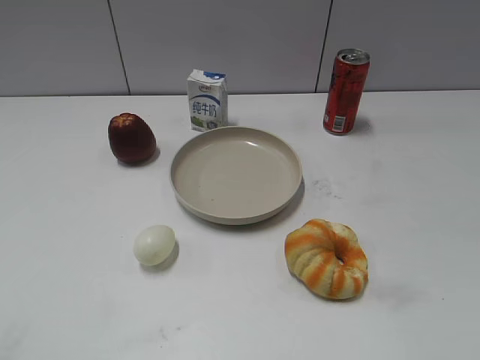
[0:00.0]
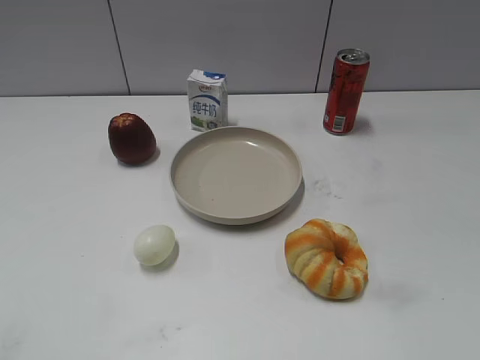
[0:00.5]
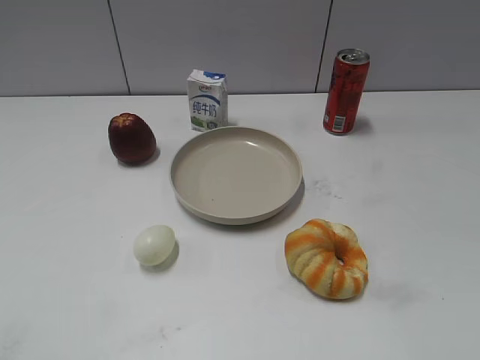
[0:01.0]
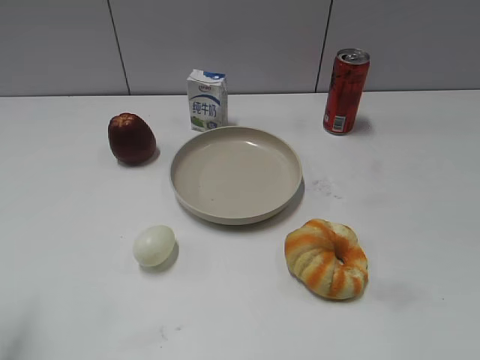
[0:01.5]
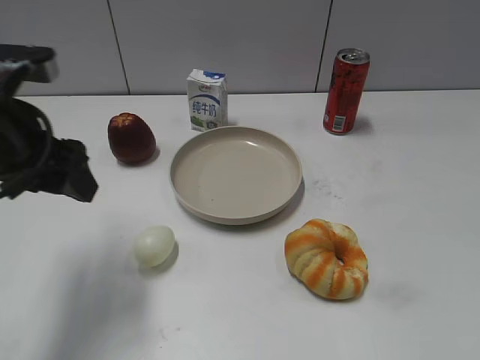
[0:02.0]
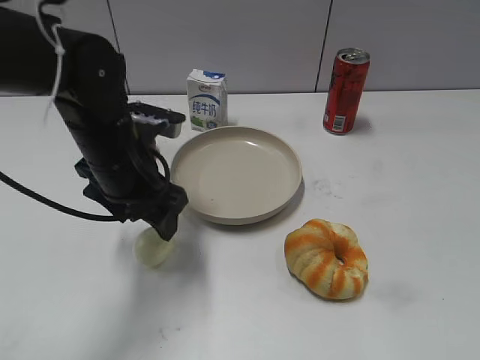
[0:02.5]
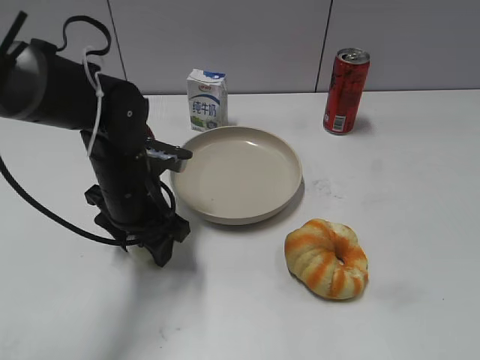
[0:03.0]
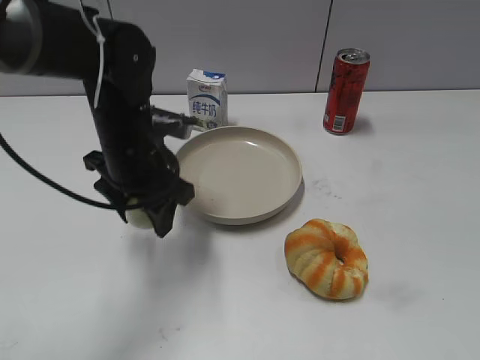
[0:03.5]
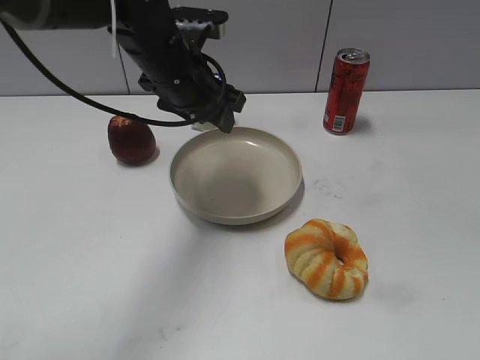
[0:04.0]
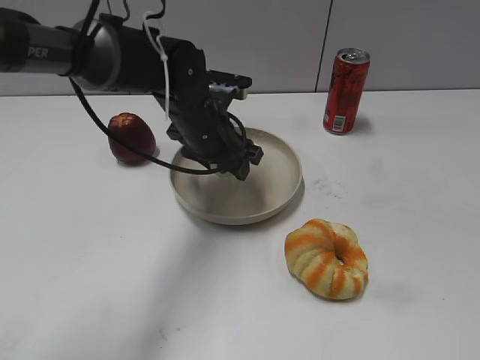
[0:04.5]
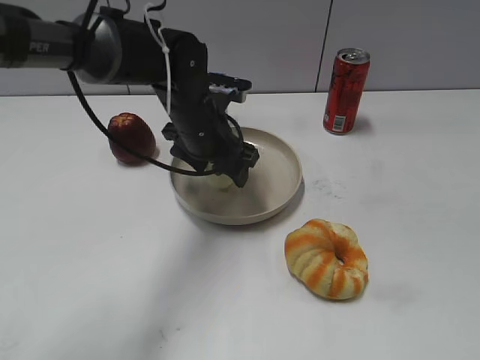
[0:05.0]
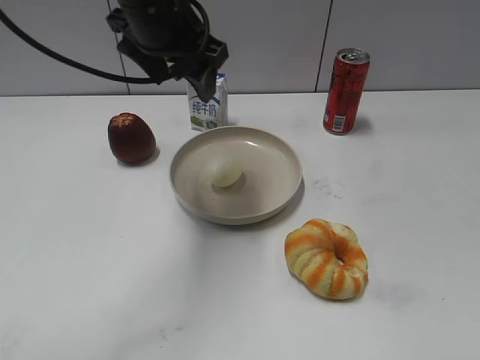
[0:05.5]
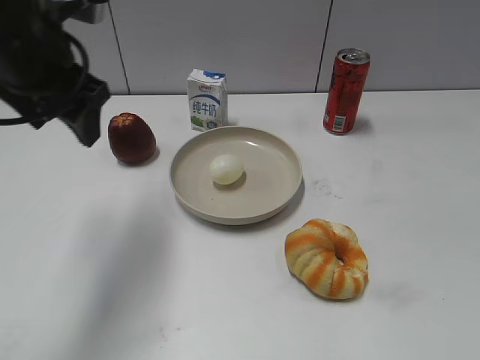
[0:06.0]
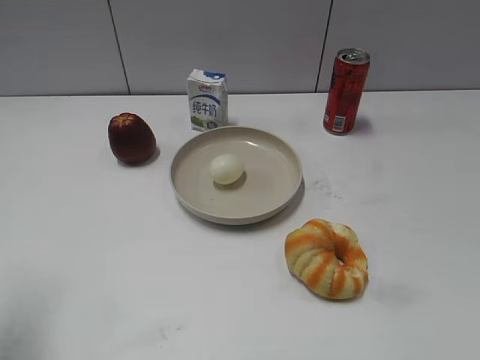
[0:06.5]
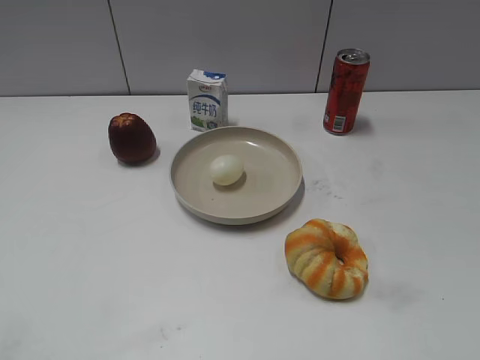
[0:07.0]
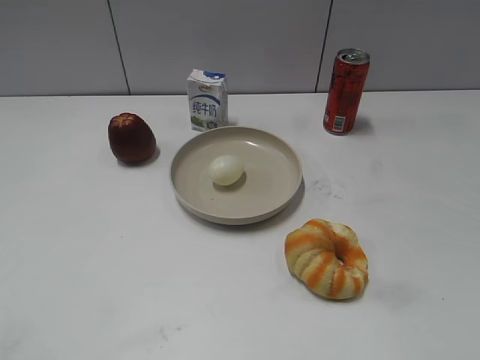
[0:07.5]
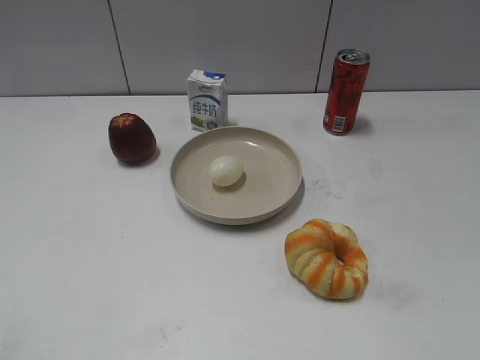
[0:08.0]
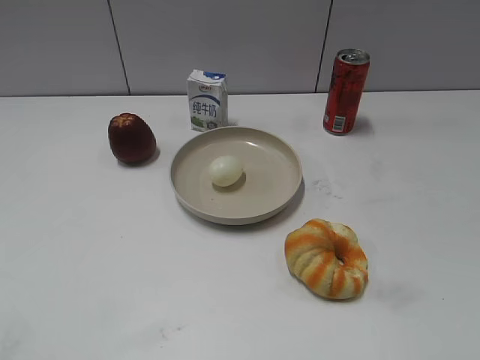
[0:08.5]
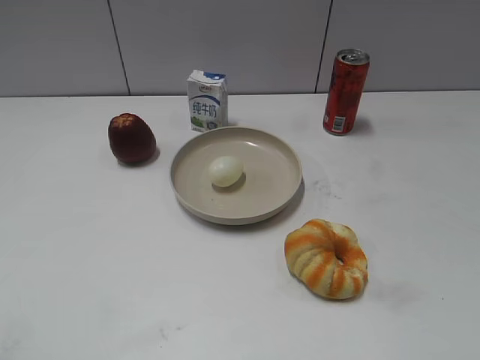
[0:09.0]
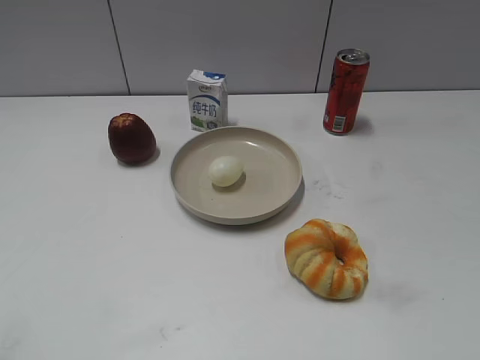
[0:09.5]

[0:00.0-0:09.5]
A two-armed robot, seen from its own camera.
0:02.0 to 0:04.0: The left gripper moves to the right and forward, roughly 20 cm, and closes.
0:04.0 to 0:05.5: The left gripper travels upward by approximately 5 cm, and opens up.
0:05.5 to 0:07.5: The left gripper heads backward and to the left, covering roughly 40 cm.
